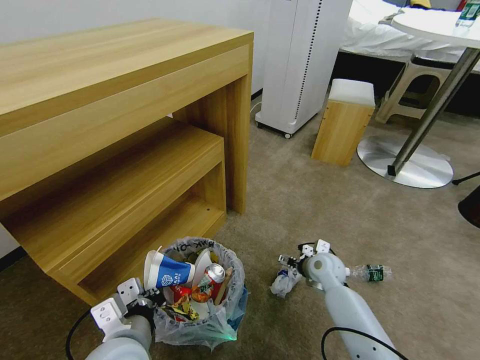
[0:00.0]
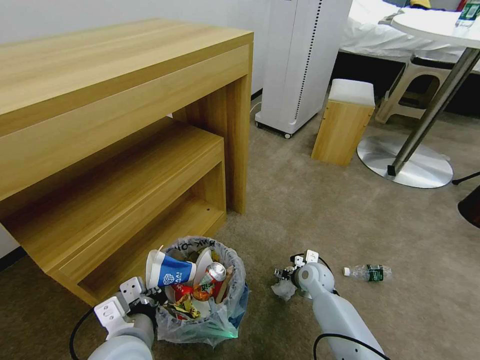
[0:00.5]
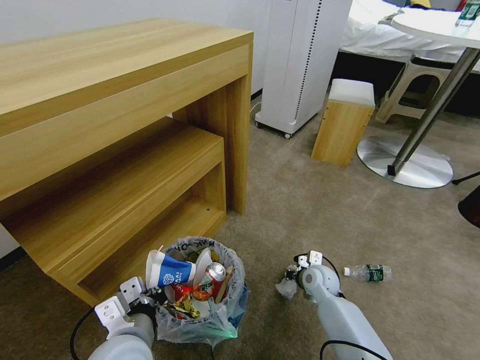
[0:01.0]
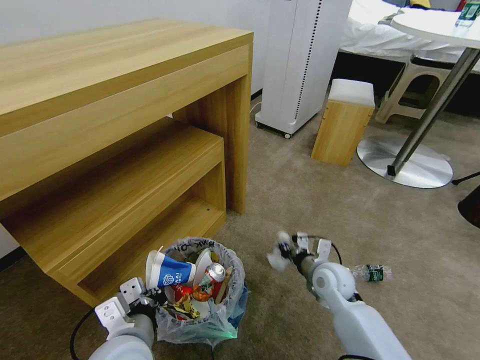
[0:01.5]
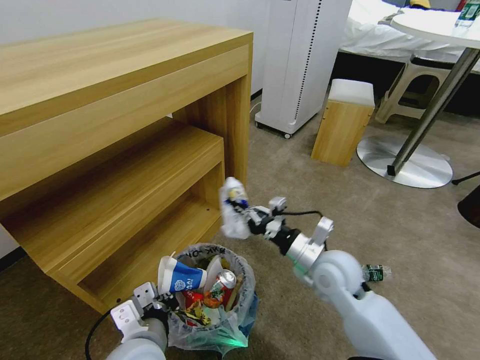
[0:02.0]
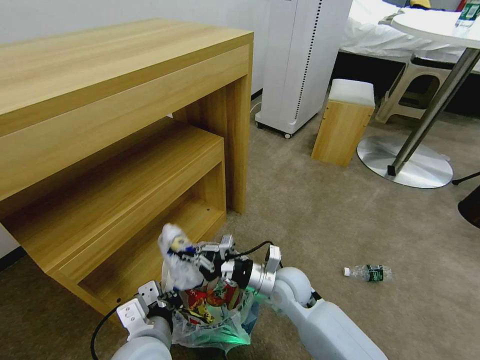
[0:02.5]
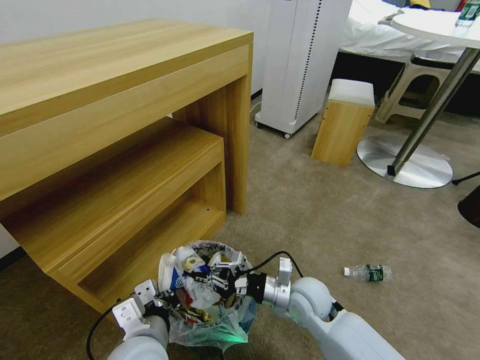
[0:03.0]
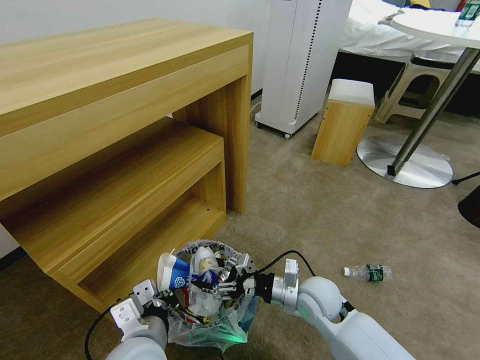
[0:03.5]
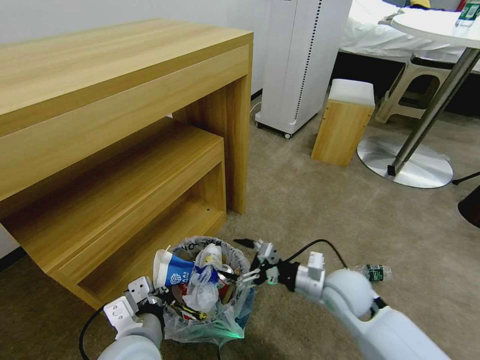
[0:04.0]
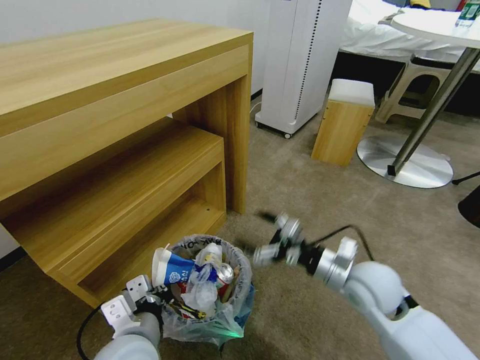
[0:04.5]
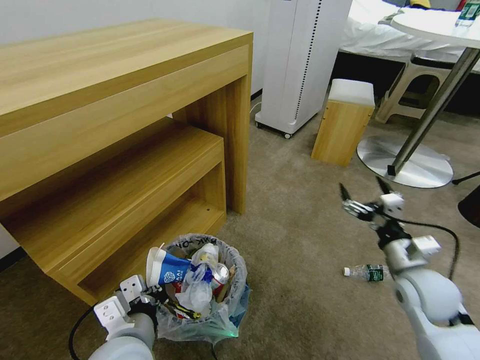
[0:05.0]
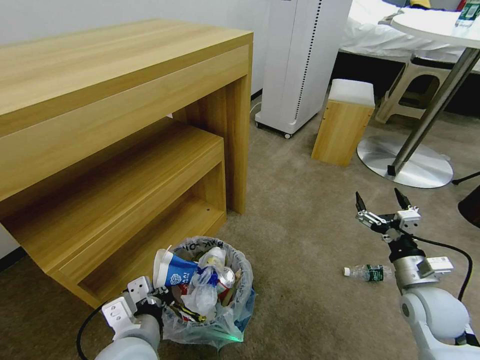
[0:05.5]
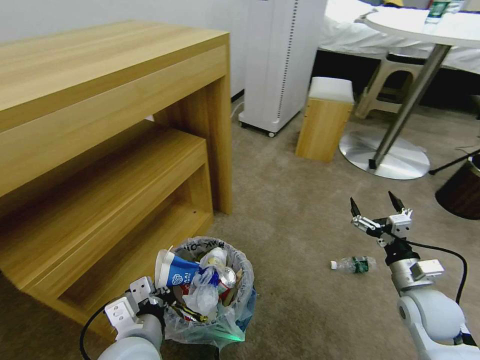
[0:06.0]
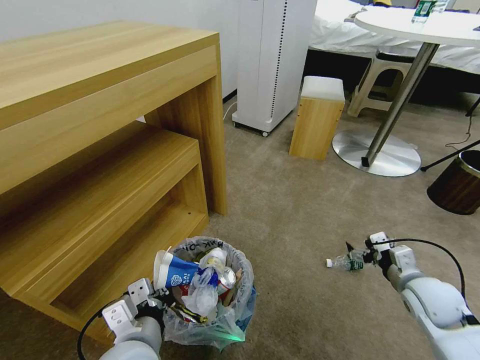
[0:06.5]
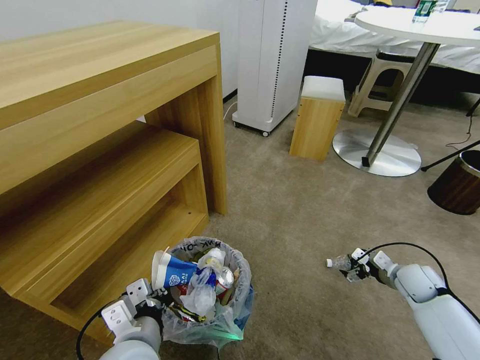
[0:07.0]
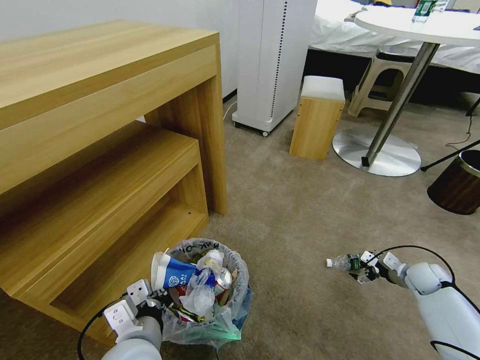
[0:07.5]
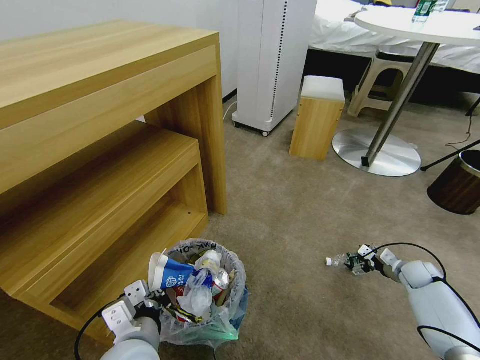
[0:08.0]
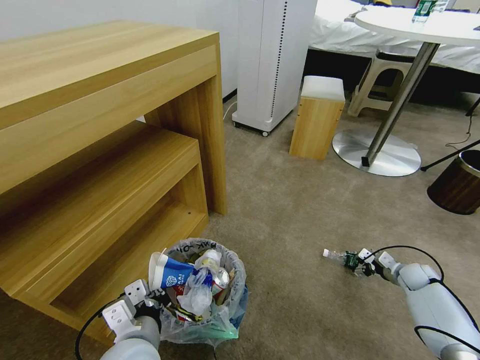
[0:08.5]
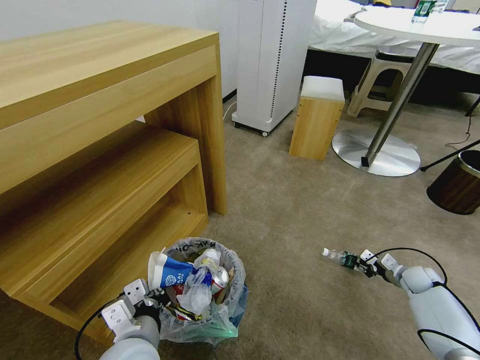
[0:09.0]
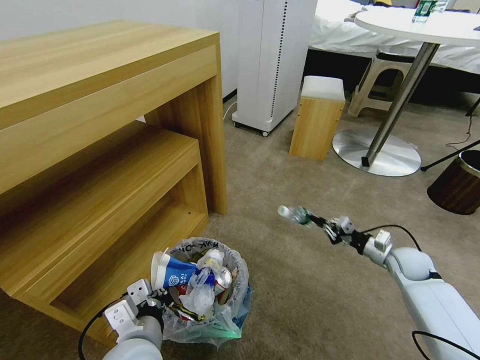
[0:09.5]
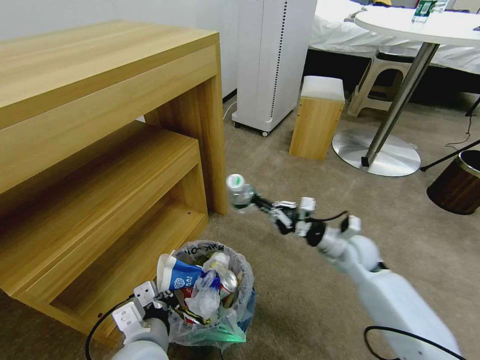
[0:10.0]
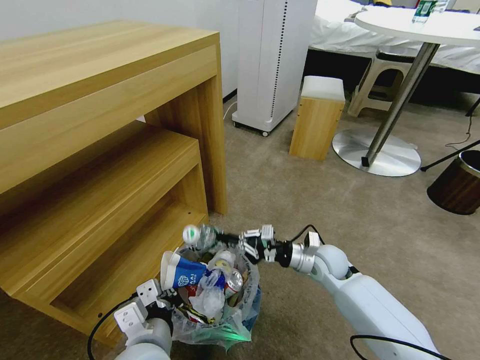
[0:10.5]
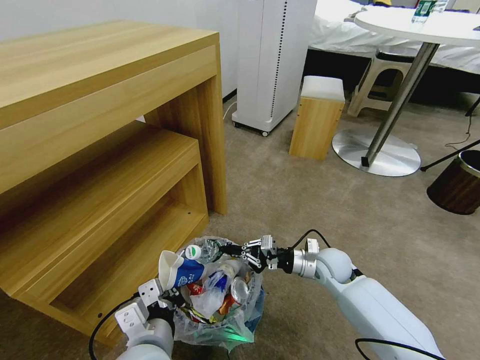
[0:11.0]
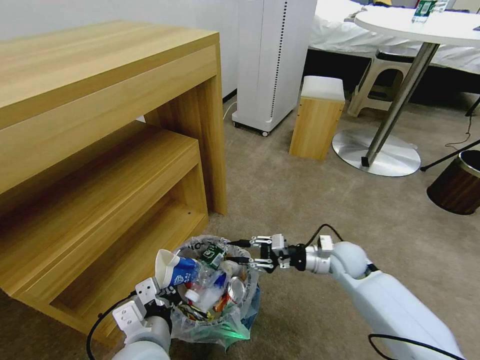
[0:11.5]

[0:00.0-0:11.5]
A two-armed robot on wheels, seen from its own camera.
Task of the whole recording: Pick up the trash bin and place the garbage on the floor into it.
0:00.0 to 0:02.0: The right gripper is displaced upward, backward and to the left by some 15 cm, and closes its fingers.
0:02.0 to 0:04.0: The right gripper travels to the left and back again, approximately 5 cm each way, and opens.
0:04.0 to 0:06.0: The right gripper is displaced to the right by approximately 15 cm.
0:06.0 to 0:07.5: The right gripper goes some 20 cm to the right, forward and downward.
0:07.5 to 0:09.5: The right gripper is displaced to the left and upward by some 10 cm, and closes up.
0:09.5 to 0:11.5: The right gripper goes about 20 cm to the left, and opens.

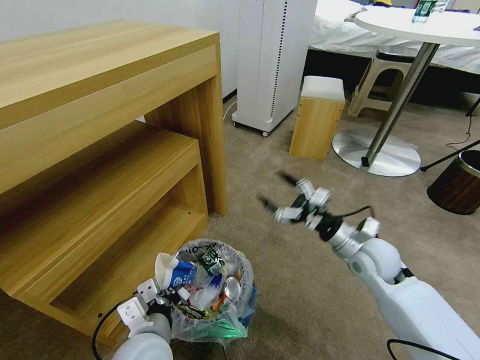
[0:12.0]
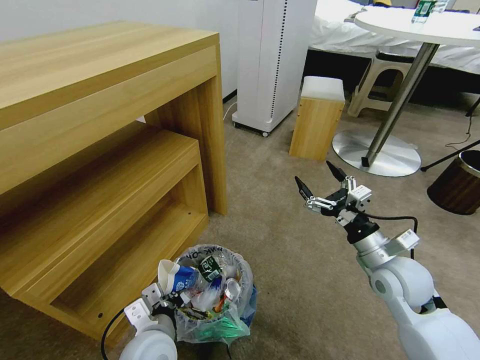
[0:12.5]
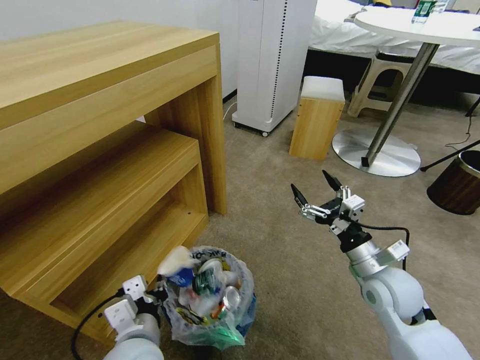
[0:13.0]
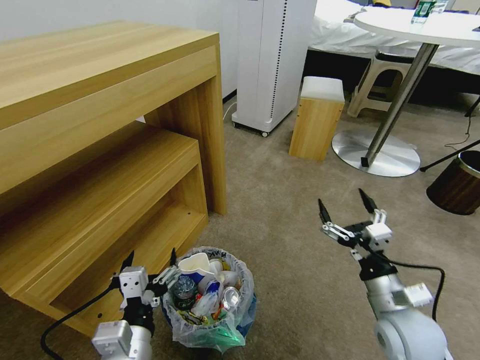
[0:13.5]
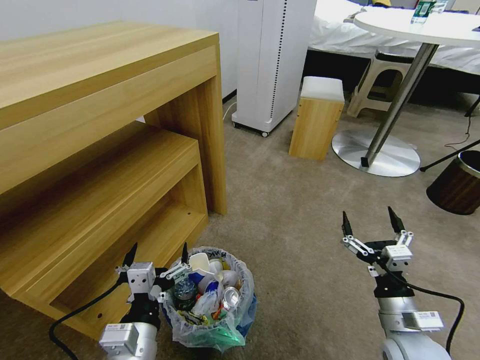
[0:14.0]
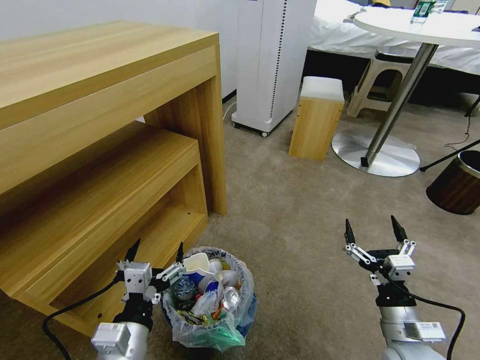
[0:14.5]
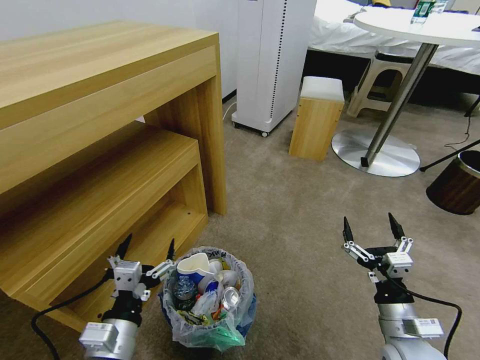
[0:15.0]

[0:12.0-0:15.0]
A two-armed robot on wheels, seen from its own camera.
Task of the whole recording: Pick up the trash bin and place the garbage on the floor into it.
0:12.0 to 0:13.5: The left gripper travels backward by about 5 cm, and opens; the right gripper moves backward, approximately 15 cm.
0:13.5 to 0:15.0: The left gripper changes place by some 5 cm. The right gripper ends up roughly 5 cm from where it was.

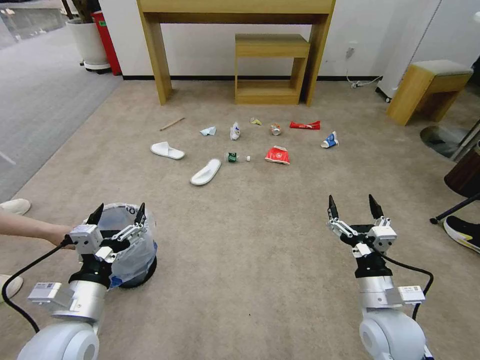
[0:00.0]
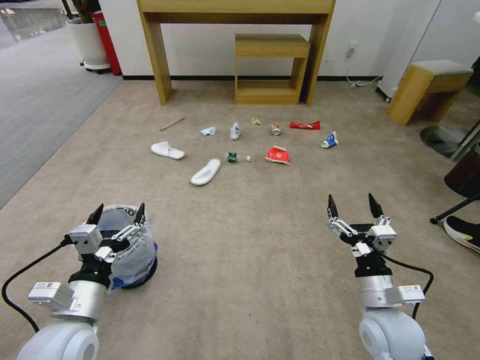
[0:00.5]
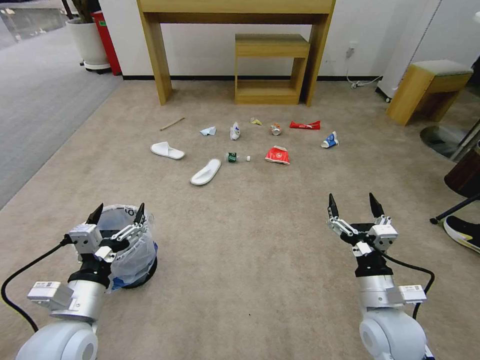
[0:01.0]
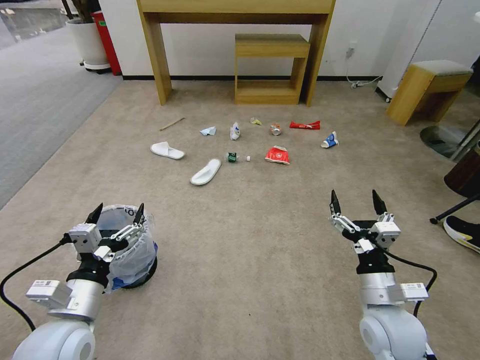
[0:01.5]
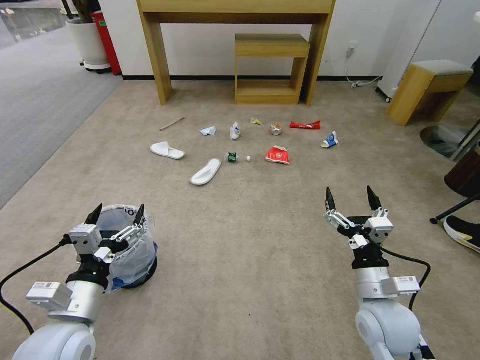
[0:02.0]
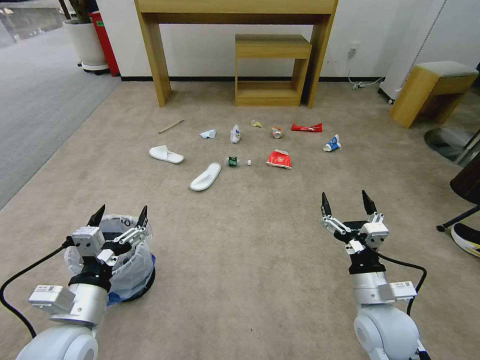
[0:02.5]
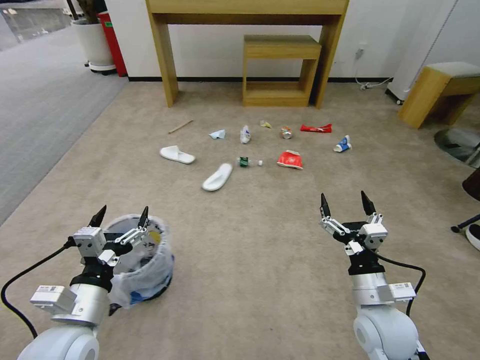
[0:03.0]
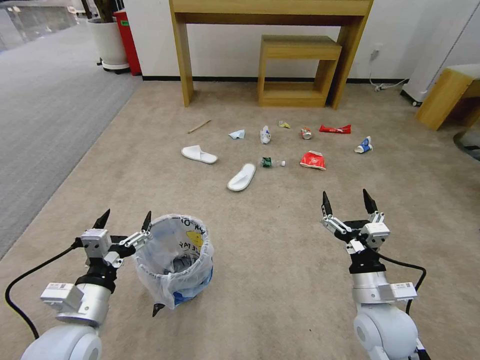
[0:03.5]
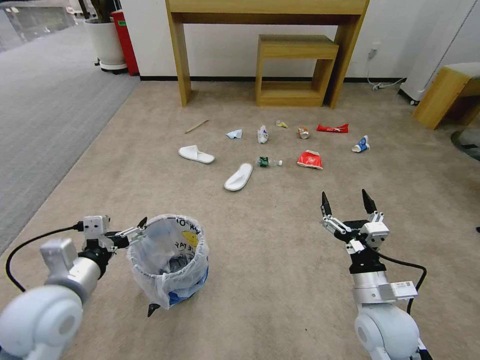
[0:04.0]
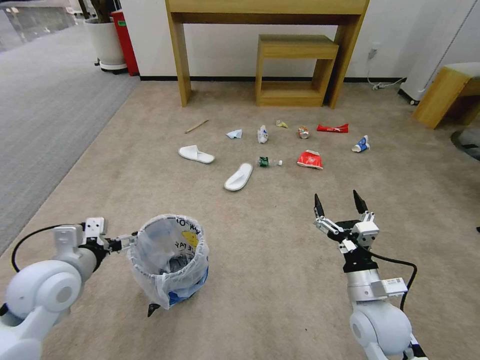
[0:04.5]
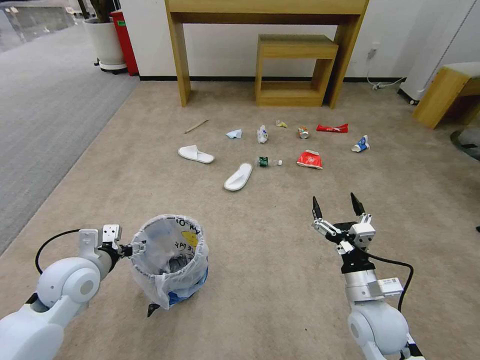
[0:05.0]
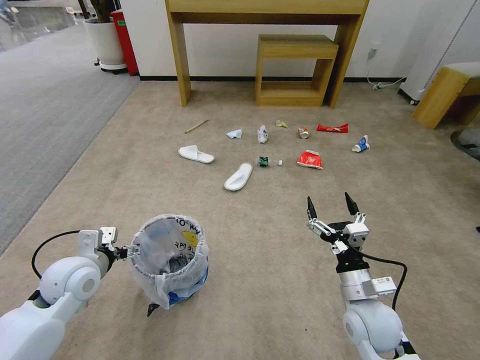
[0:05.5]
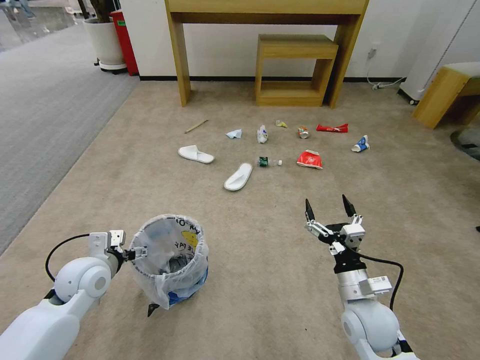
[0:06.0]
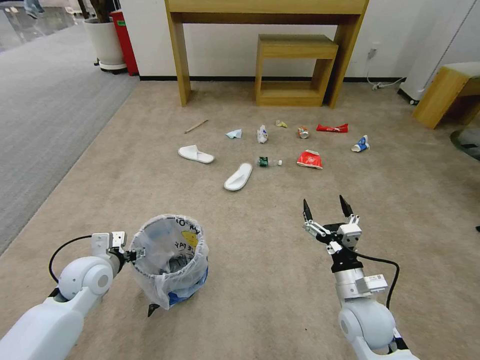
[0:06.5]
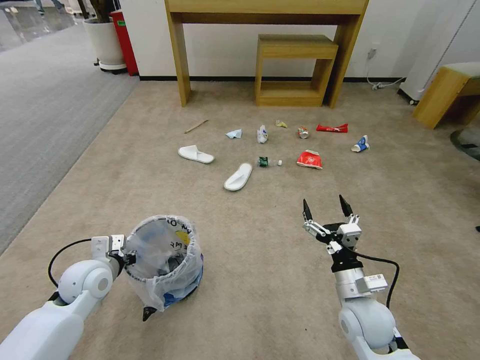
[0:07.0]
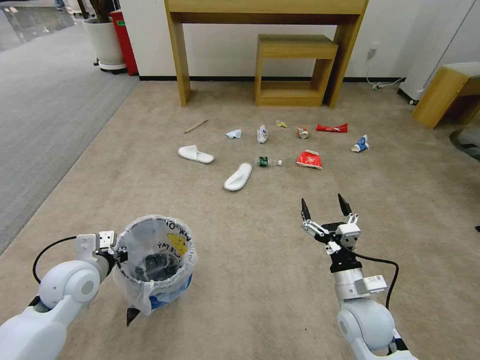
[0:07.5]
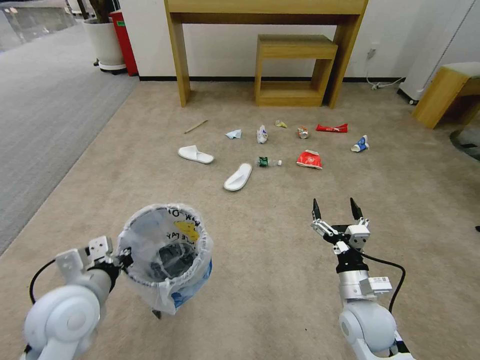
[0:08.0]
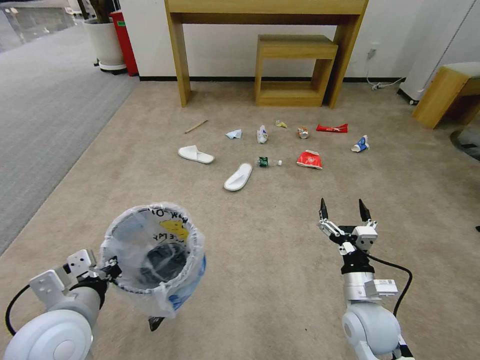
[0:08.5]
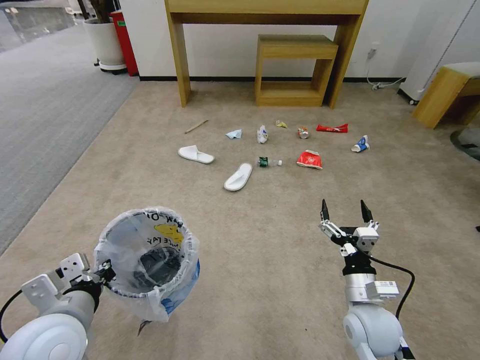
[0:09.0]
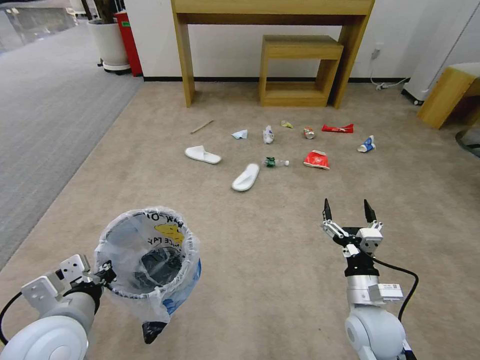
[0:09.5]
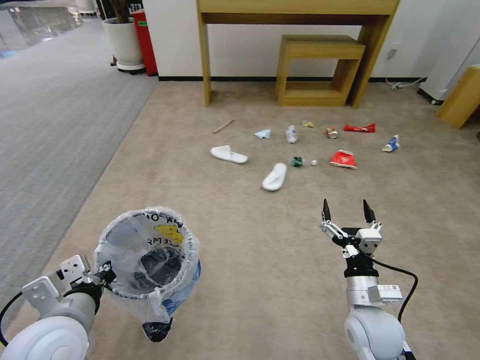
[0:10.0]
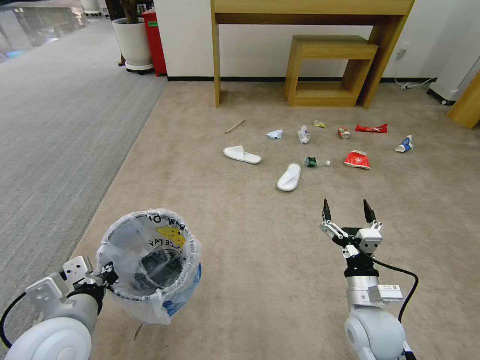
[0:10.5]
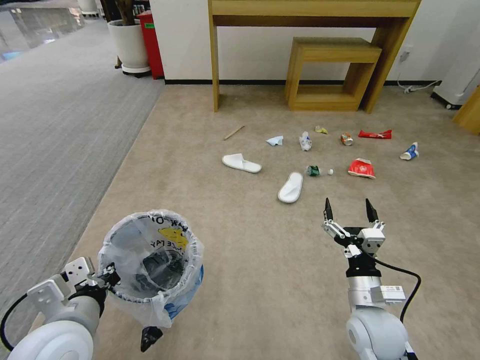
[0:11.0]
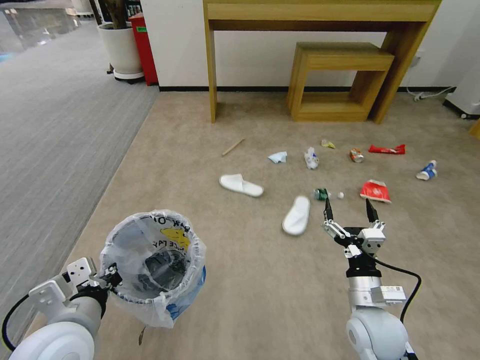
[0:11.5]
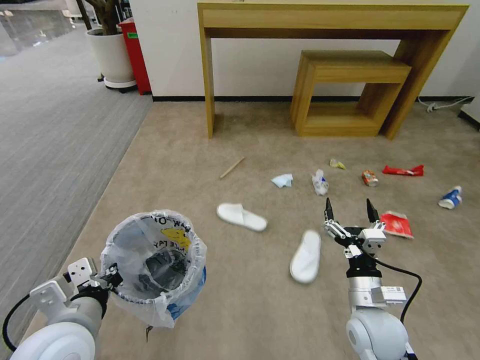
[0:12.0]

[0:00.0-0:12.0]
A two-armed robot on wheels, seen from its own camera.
Task of the whole recording: Pick up the trash bin and place the garbage on the floor into it.
0:02.0 to 0:04.0: The left gripper changes place by about 5 cm.
0:04.0 to 0:06.0: The left gripper goes about 15 cm forward and downward.
0:06.0 to 0:08.0: The left gripper goes roughly 10 cm backward and upward, and closes.
0:08.0 to 0:10.0: The left gripper changes place by roughly 5 cm.
